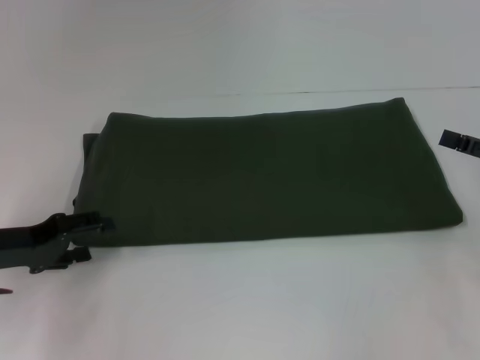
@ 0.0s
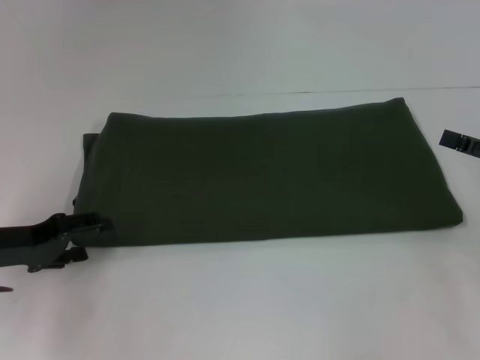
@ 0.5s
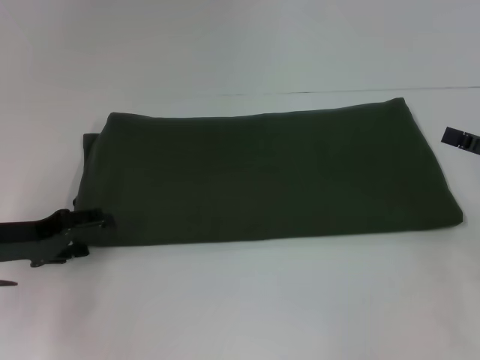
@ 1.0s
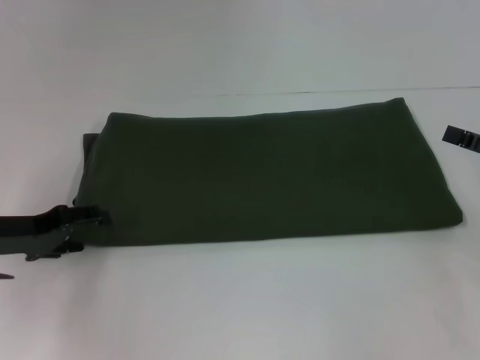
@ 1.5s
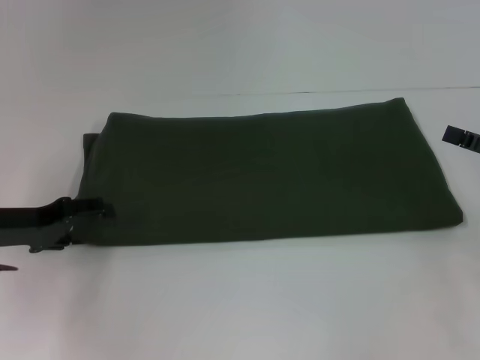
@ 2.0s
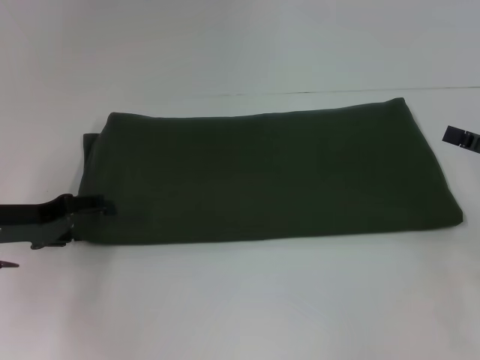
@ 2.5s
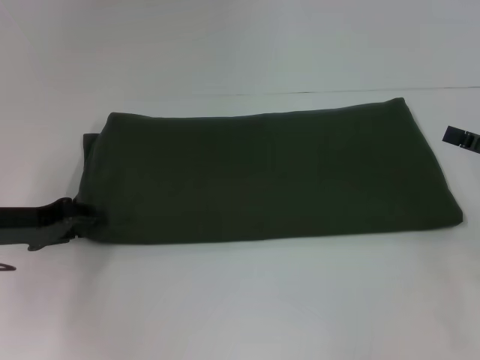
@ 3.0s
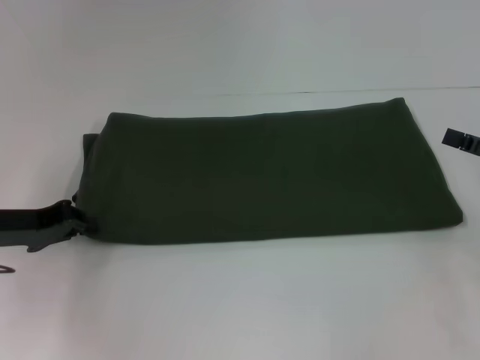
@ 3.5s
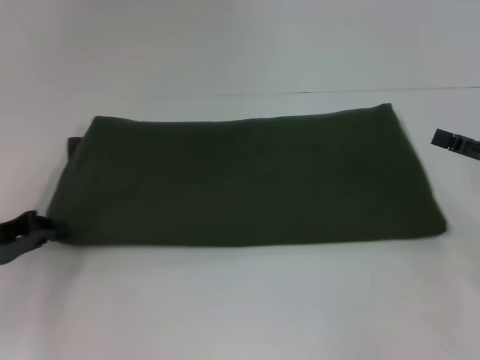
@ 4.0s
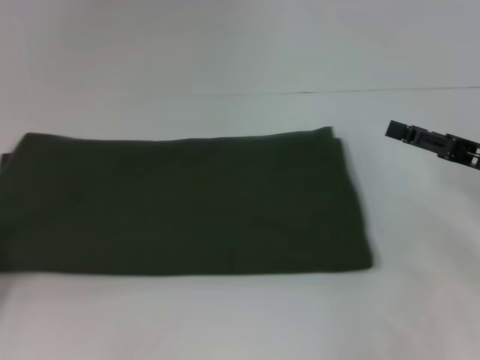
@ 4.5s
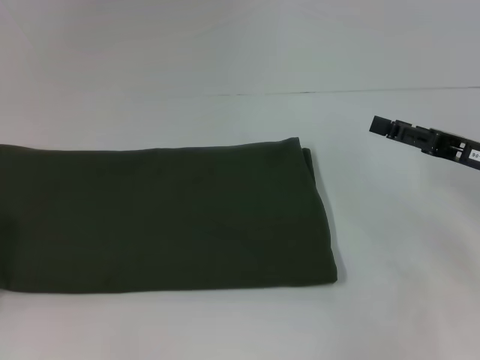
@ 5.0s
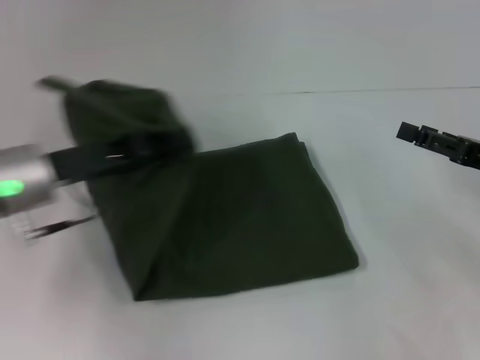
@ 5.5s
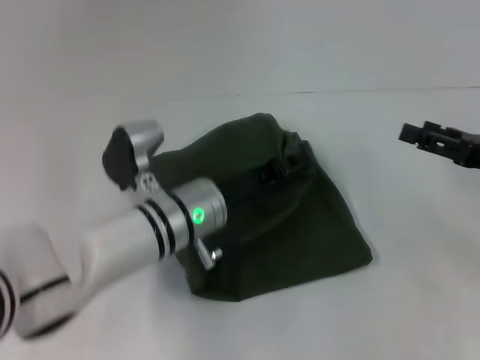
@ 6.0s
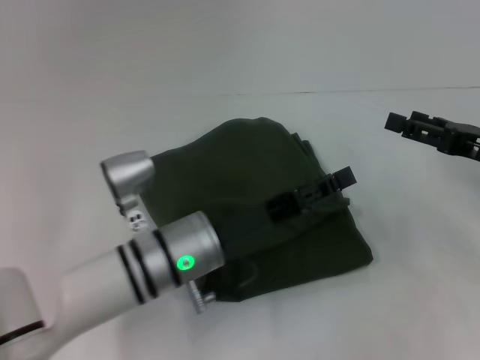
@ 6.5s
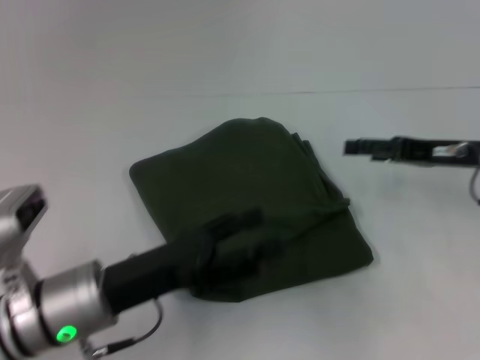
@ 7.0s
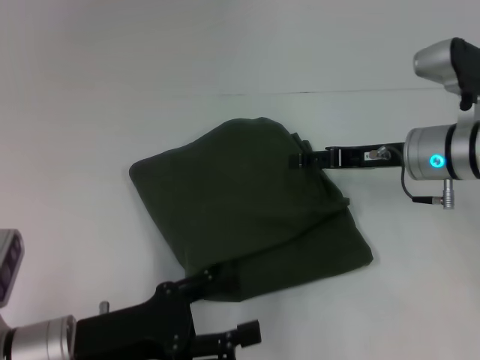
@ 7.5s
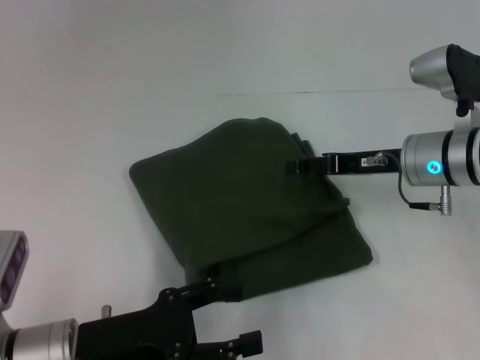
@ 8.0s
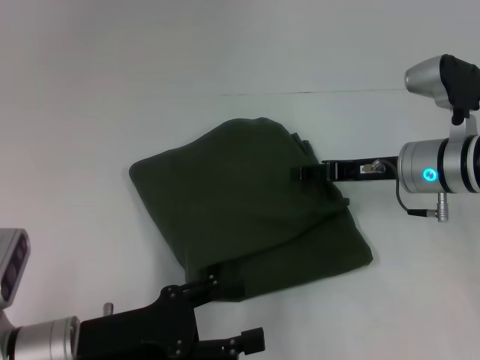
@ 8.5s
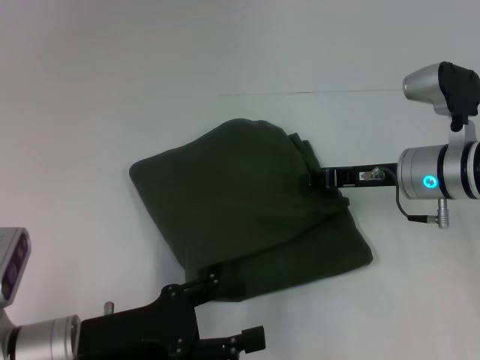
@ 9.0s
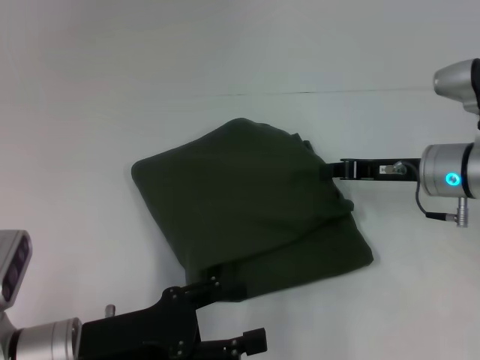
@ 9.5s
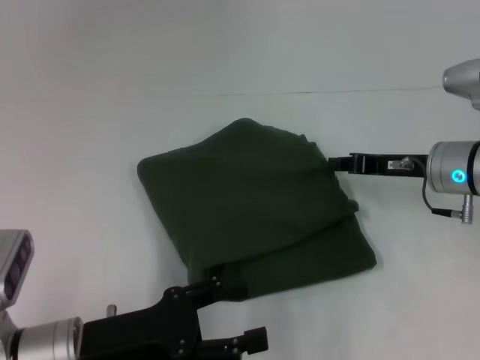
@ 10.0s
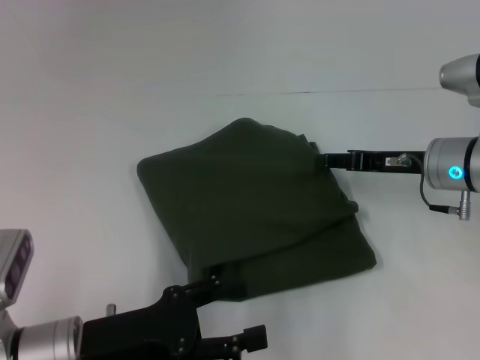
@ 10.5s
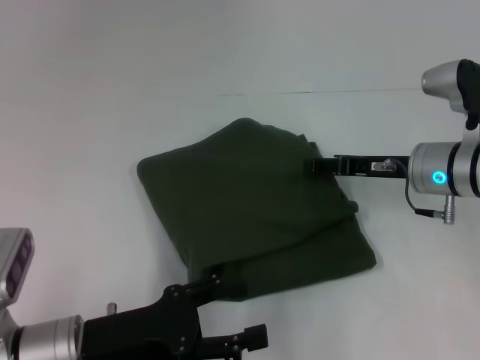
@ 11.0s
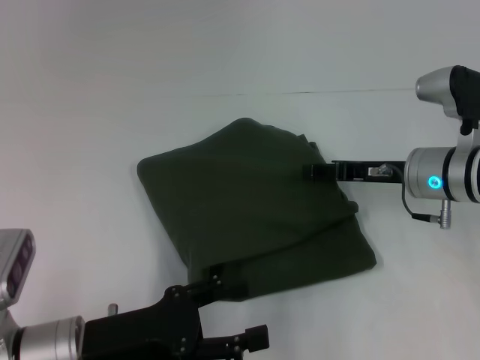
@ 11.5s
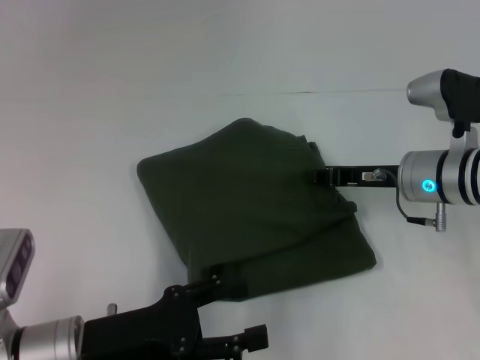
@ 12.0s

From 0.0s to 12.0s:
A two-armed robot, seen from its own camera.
Step, from 0.0s to 6.0s: Fold the clothes with your left hand.
From 0.0s to 2.0s: The grippers make only small movements.
From 2.0s to 4.0s: The left gripper closes.
From 4.0s to 6.0s: The left gripper travels to the right by about 25 cm.
From 6.0s to 8.0s: The left gripper shifts roughly 20 cm backward and to the left, and opens up, while the right gripper heads to the left and forward, covering approximately 15 cm.
From 8.0s to 10.0s: The right gripper closes.
From 10.0s to 12.0s: The right gripper opens.

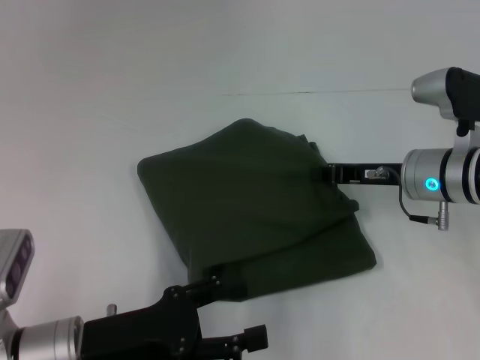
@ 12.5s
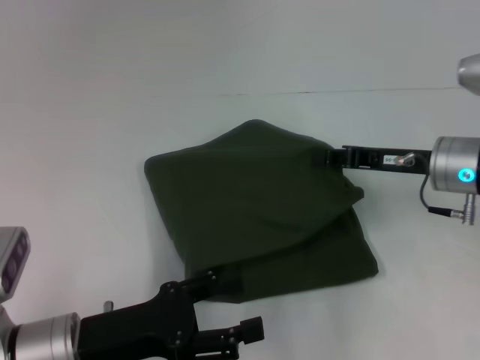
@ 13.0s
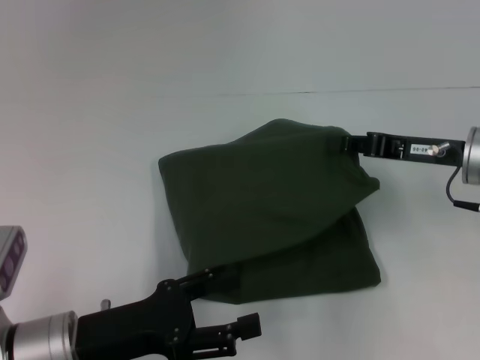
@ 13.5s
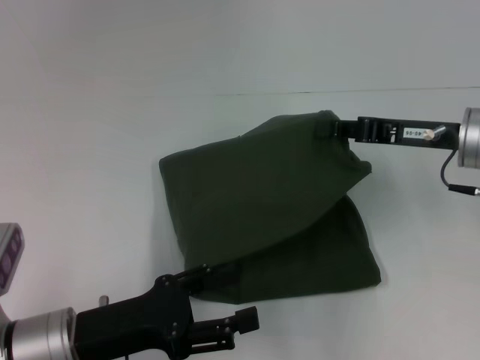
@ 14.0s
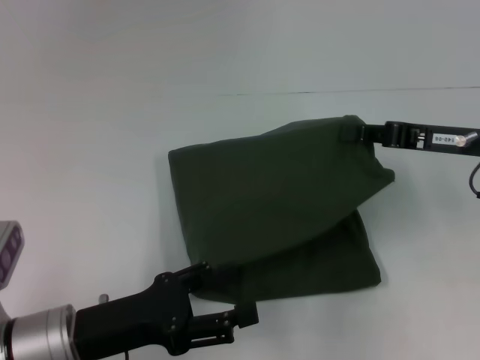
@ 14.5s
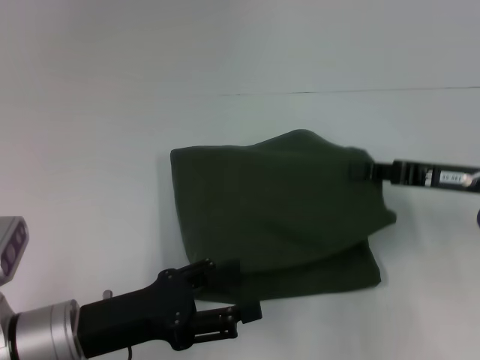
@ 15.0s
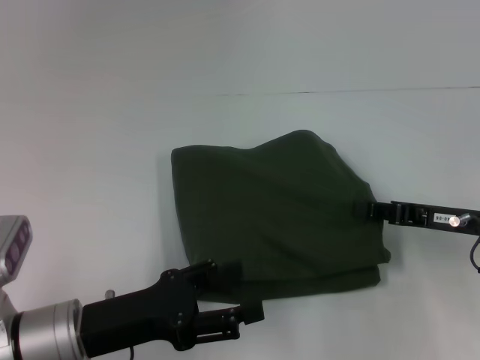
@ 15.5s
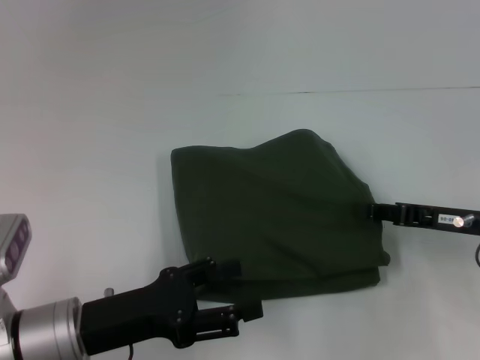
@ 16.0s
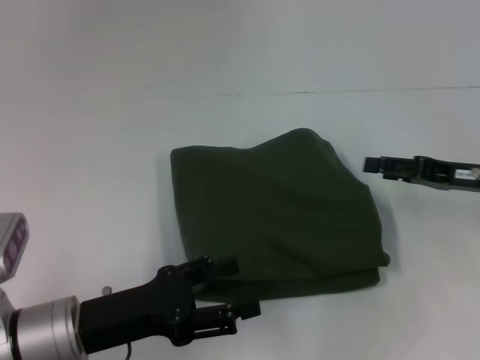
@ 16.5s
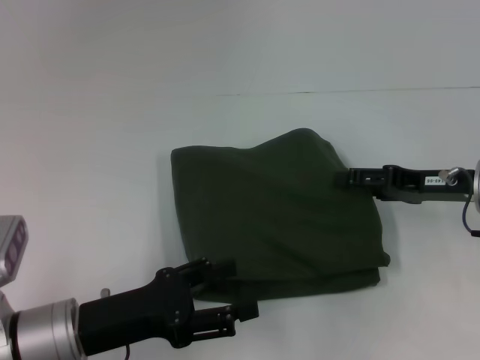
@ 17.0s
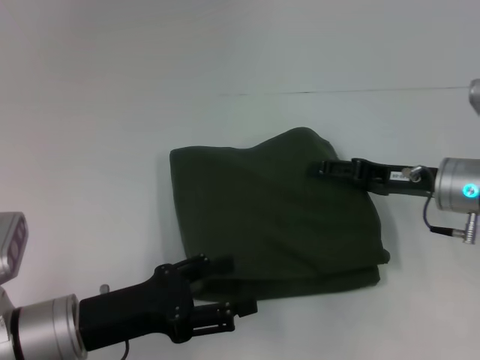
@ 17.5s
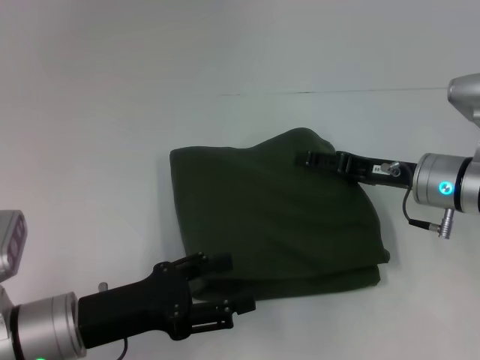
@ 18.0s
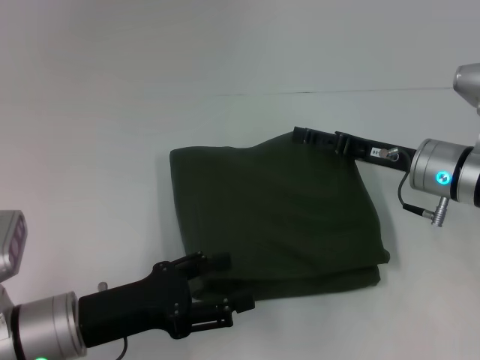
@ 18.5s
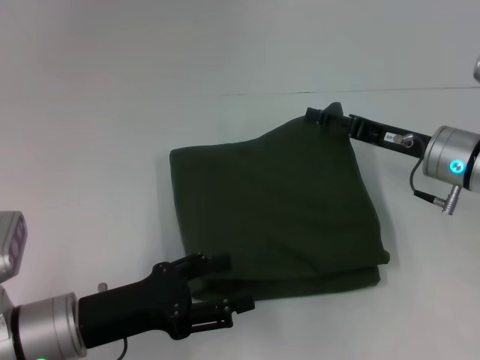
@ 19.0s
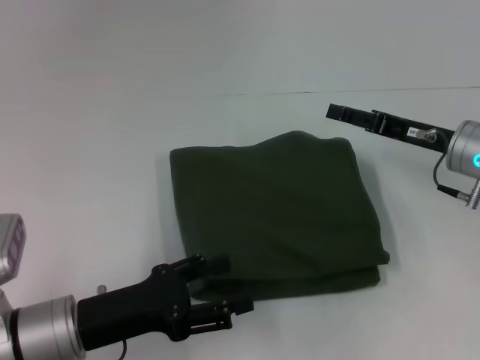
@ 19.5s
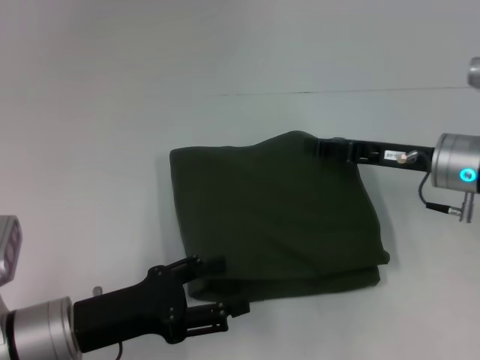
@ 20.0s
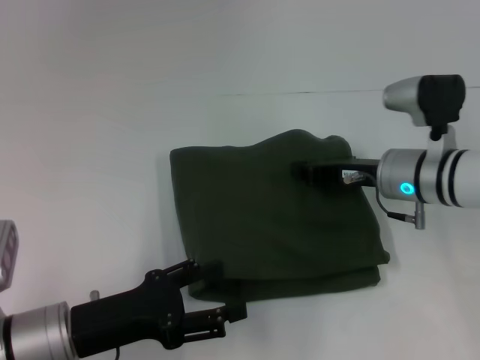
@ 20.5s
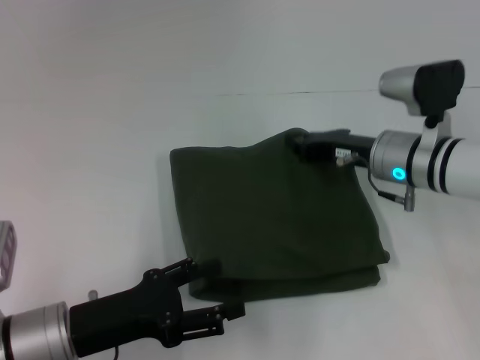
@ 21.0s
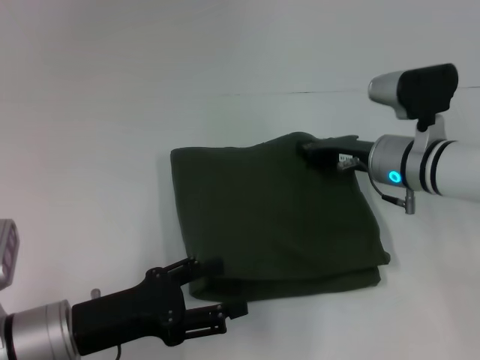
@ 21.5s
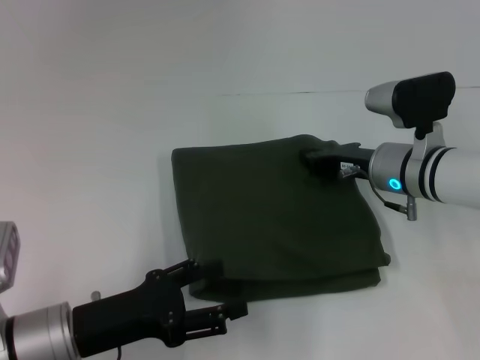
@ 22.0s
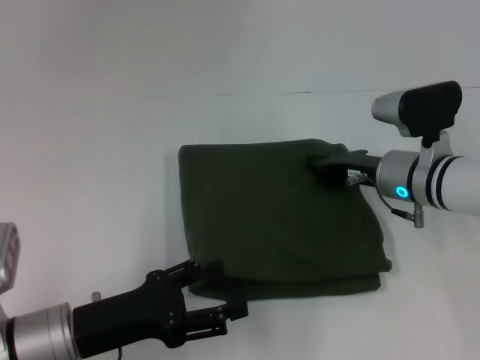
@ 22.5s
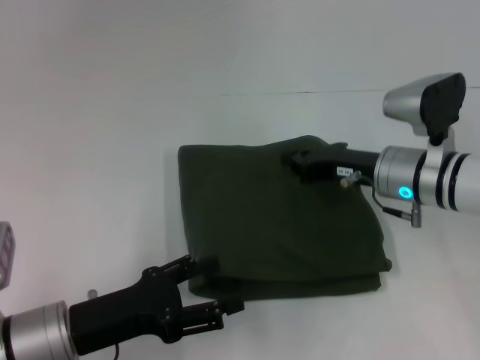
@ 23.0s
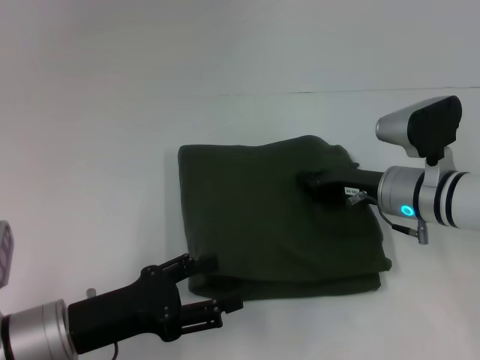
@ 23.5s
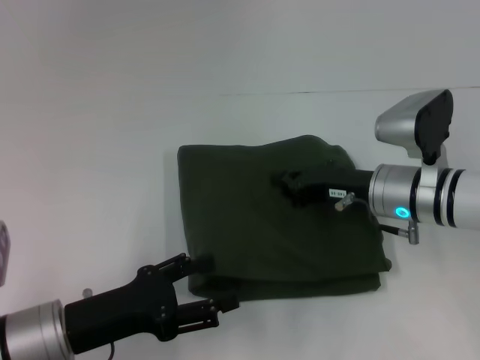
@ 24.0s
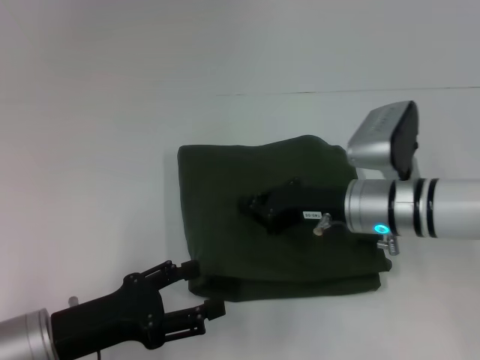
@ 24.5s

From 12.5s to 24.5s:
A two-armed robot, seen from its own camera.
From 12.5s to 14.5s: The right gripper heads upward and to the right, covering approximately 10 cm.
From 14.5s to 16.5s: The right gripper ends up approximately 5 cm from where it was, and opens up.
From 16.5s to 18.5s: The right gripper moves to the left, about 10 cm.
From 18.5s to 20.5s: The right gripper closes up.
From 20.5s to 22.5s: The grippers move only a little.
From 22.5s to 24.5s: The right gripper ends up about 5 cm from where it was.

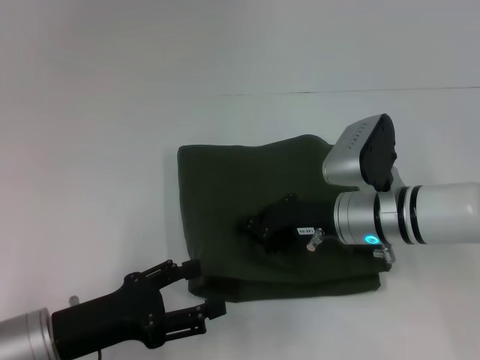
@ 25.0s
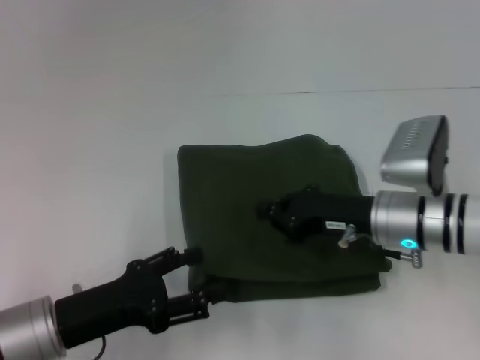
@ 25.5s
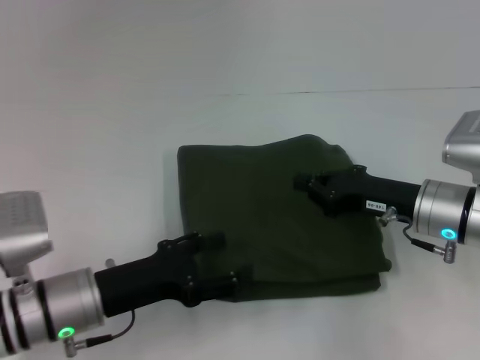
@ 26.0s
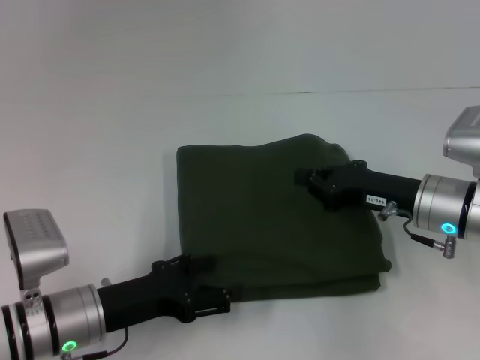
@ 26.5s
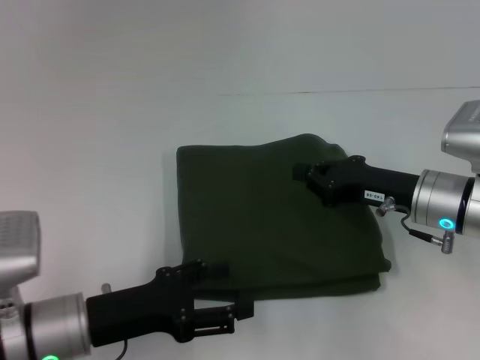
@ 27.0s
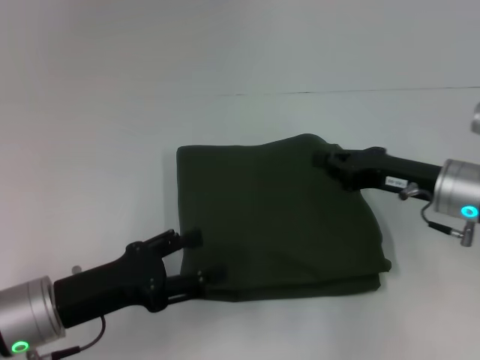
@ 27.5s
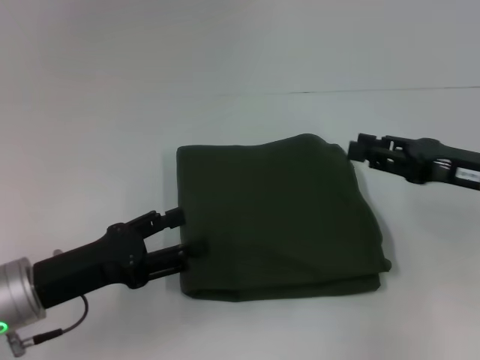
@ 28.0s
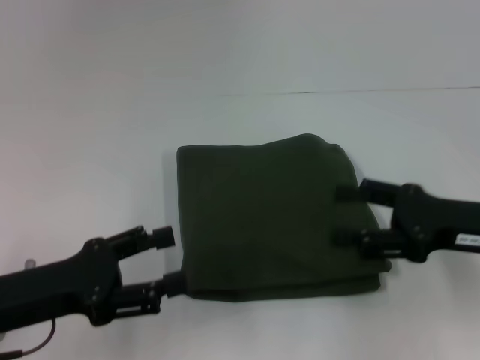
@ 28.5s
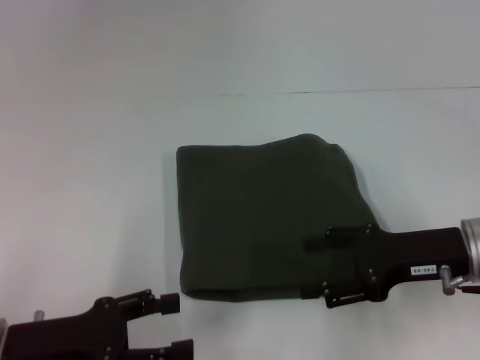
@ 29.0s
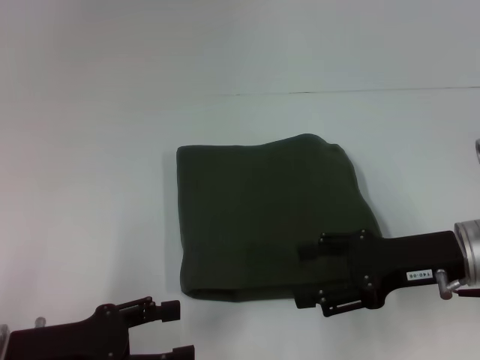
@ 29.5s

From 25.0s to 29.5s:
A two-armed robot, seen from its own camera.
From 25.0s to 27.0s: The right gripper heads to the right, covering about 5 cm.
From 27.0s to 29.5s: The left gripper travels to the left by roughly 5 cm. The right gripper opens.
